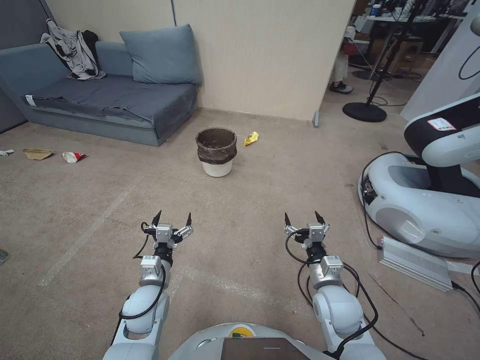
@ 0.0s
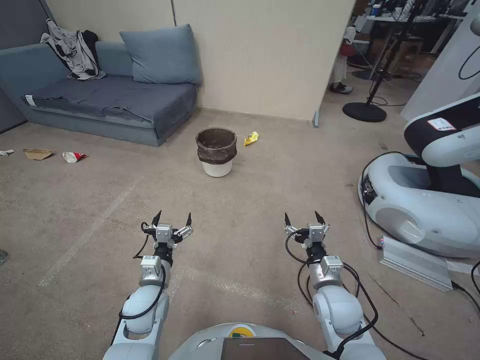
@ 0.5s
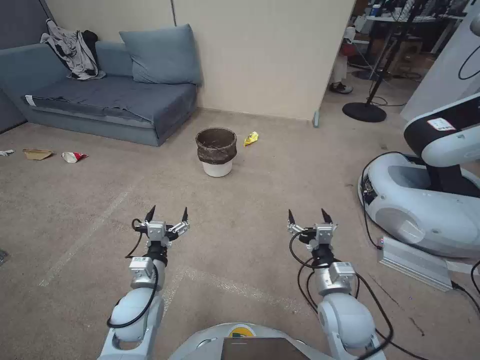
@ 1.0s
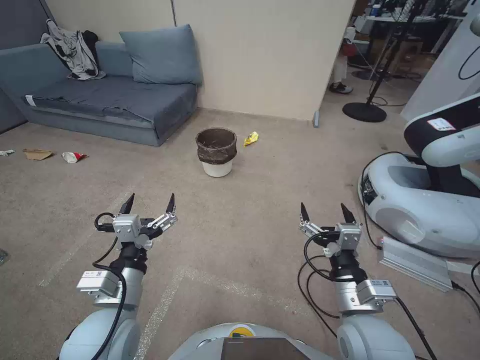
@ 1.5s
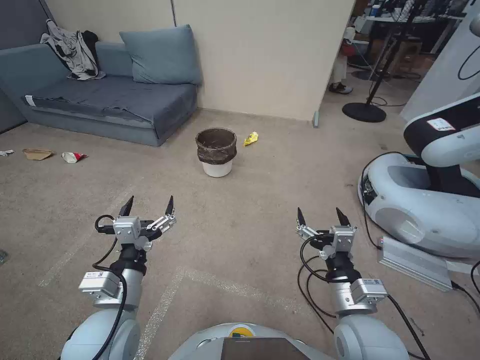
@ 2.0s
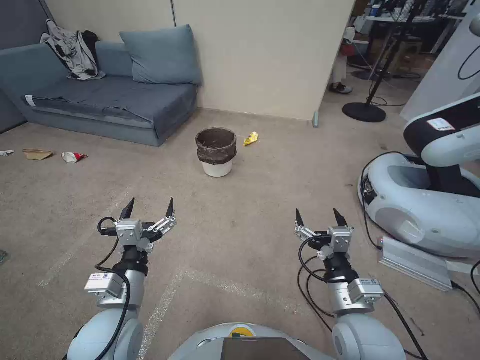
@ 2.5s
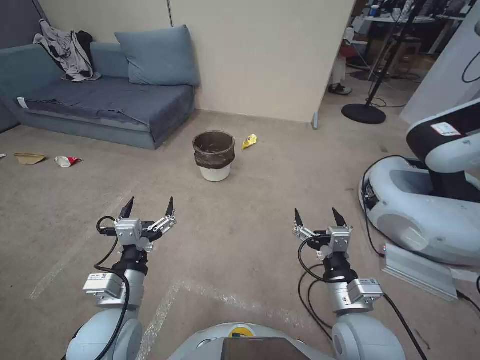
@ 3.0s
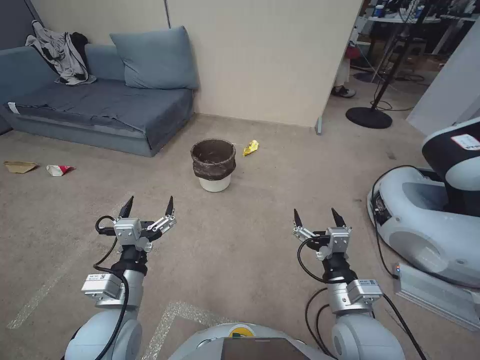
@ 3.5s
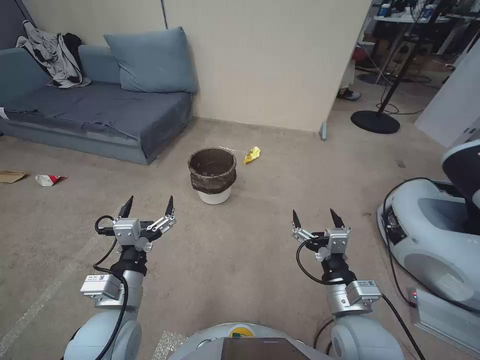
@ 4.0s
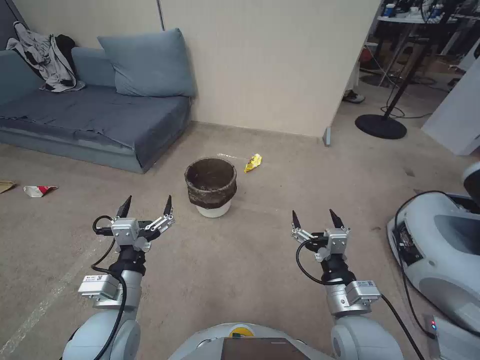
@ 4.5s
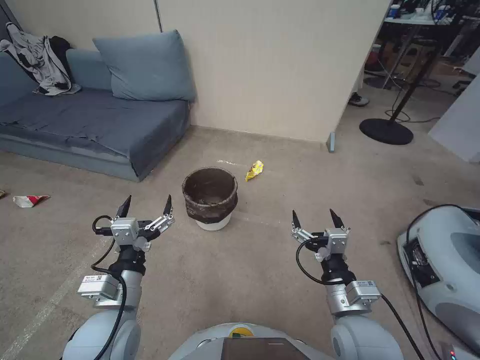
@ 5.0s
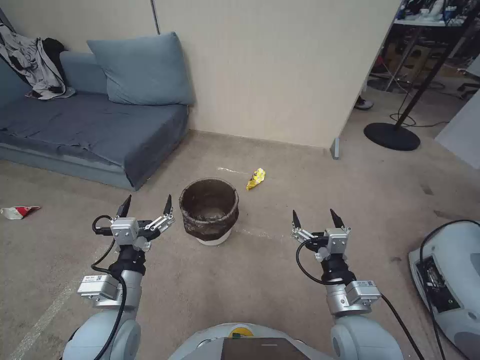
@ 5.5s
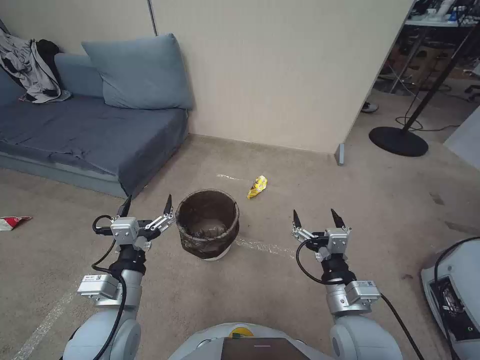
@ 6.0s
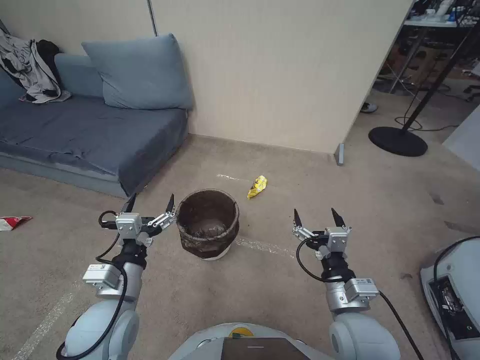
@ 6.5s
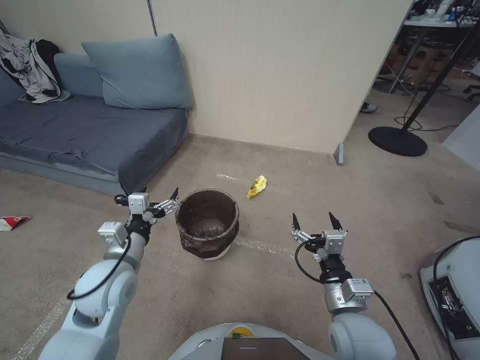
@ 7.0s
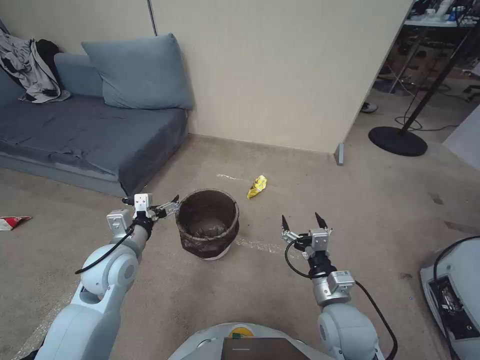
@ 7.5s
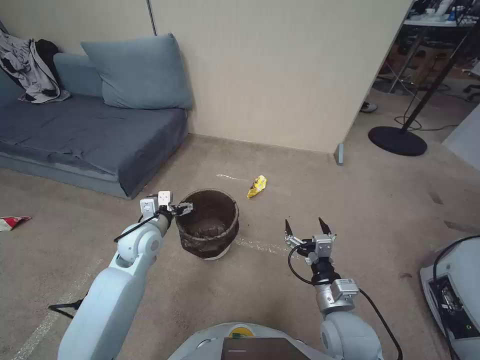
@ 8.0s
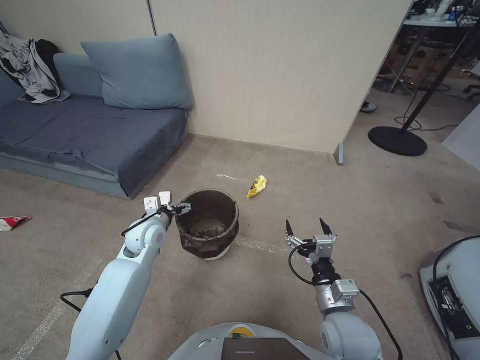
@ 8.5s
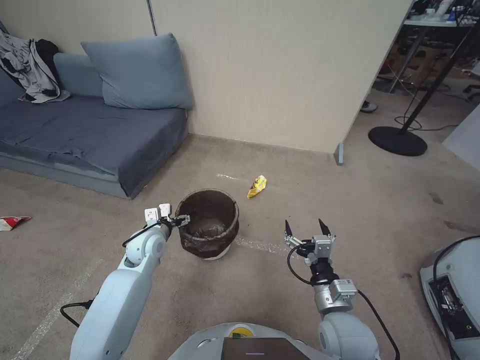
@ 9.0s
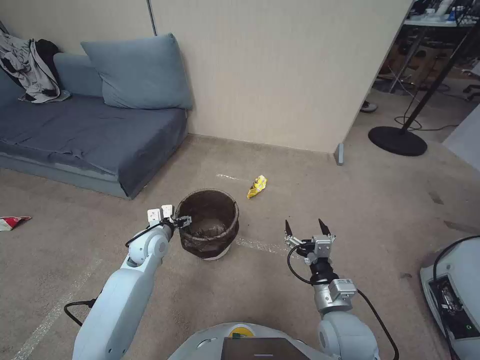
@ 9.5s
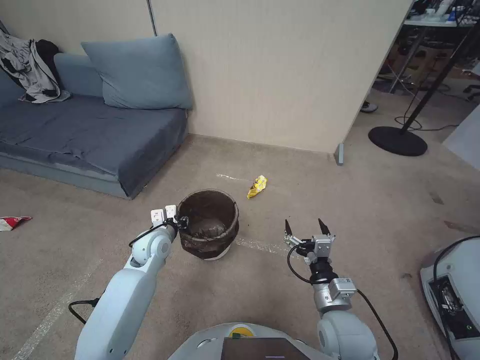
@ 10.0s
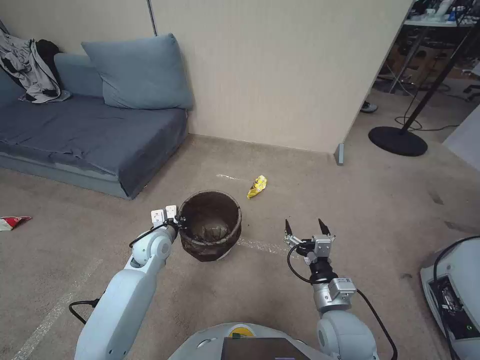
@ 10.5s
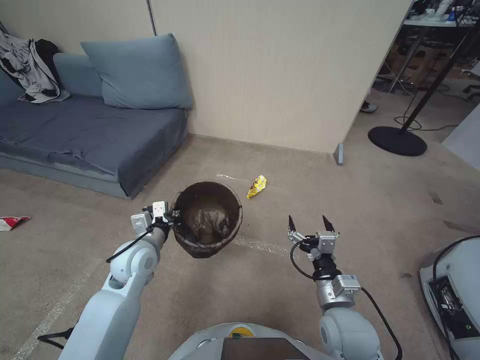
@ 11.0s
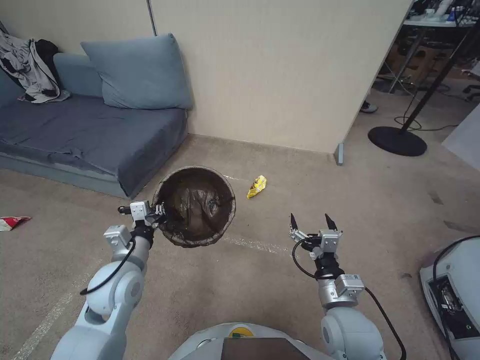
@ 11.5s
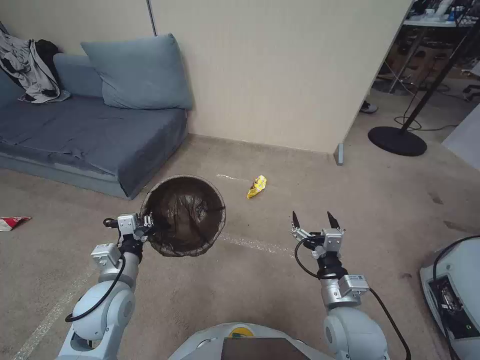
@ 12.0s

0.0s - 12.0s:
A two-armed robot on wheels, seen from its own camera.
Task of the whole recording: Pick up the trash bin, then pick up the garbage from the floor and place it into the trash bin.
6.0s - 8.0s: The right gripper goes approximately 5 cm downward. Meanwhile the left gripper goes roughly 15 cm forward.
8.0s - 10.0s: The left gripper goes about 5 cm downward, and closes up.
10.0s - 12.0s: The left gripper goes about 15 cm backward and upward, and closes up.

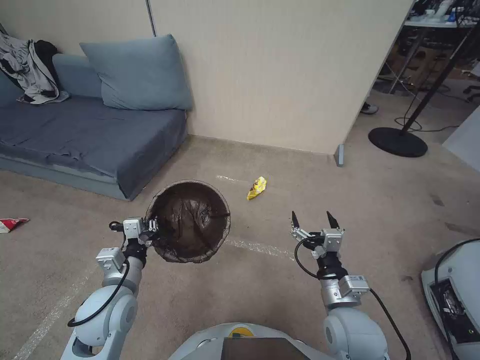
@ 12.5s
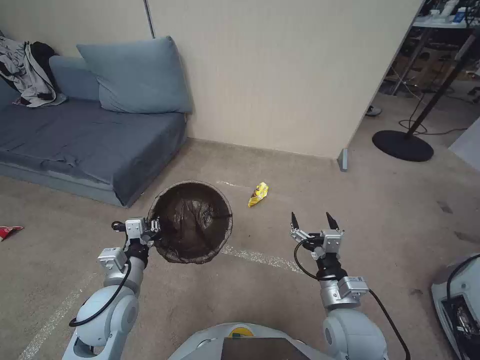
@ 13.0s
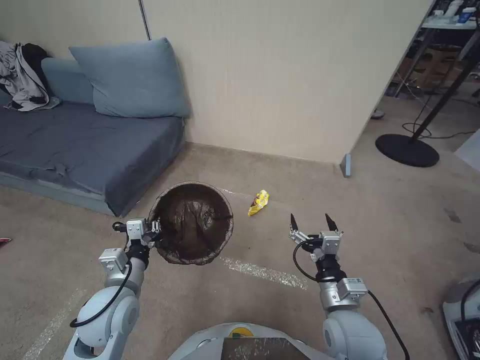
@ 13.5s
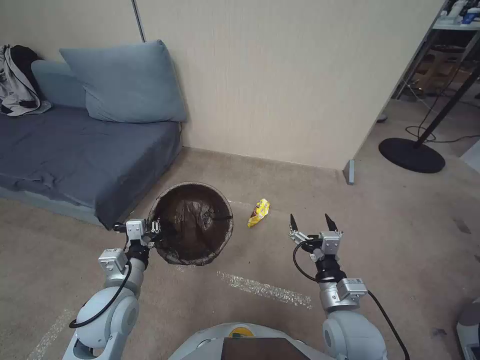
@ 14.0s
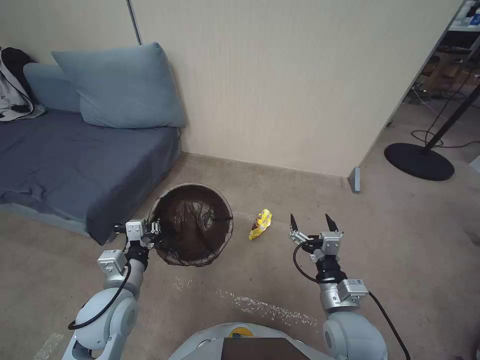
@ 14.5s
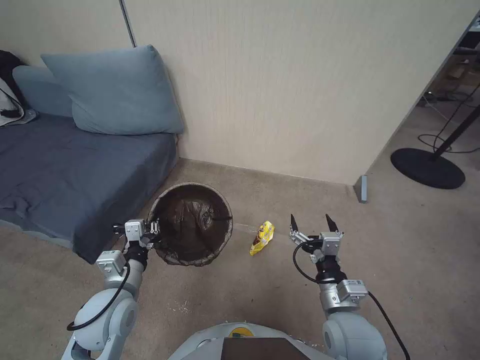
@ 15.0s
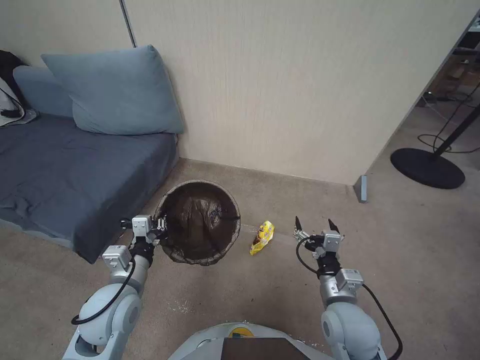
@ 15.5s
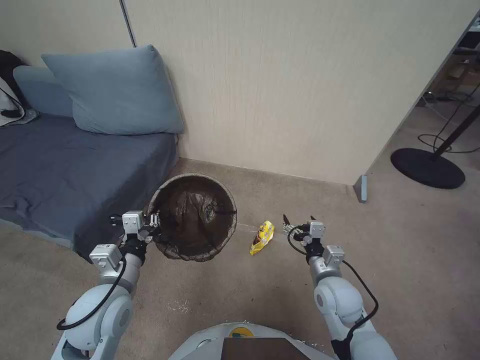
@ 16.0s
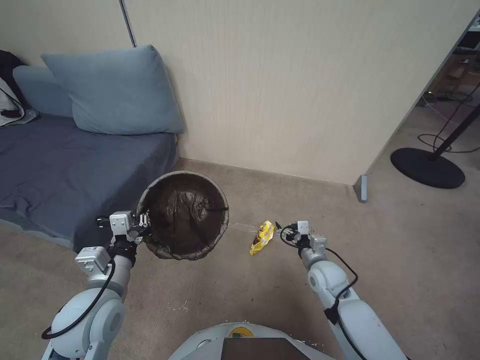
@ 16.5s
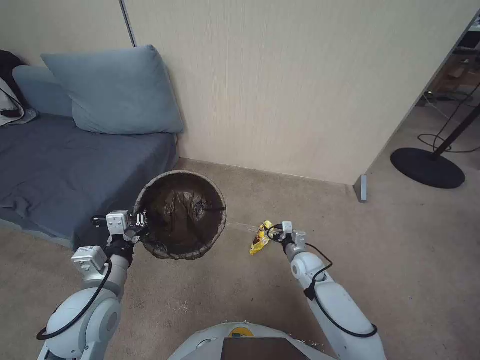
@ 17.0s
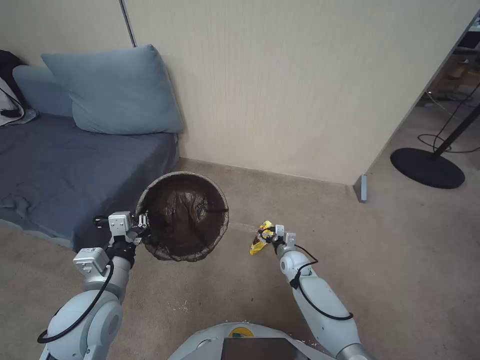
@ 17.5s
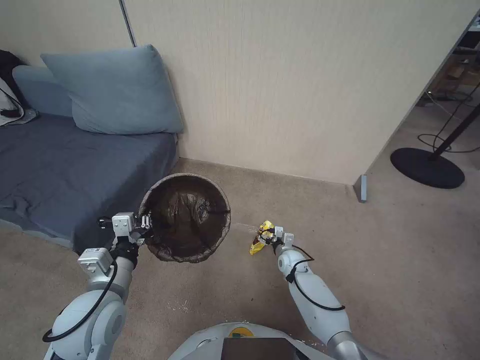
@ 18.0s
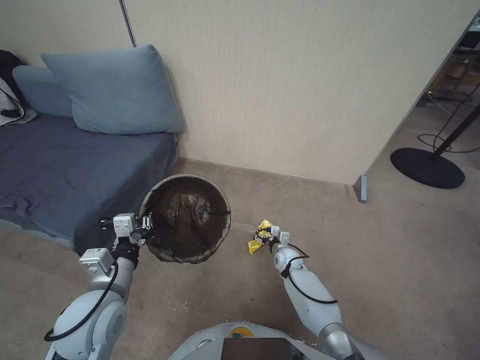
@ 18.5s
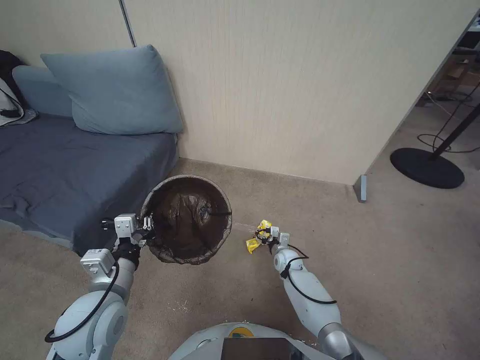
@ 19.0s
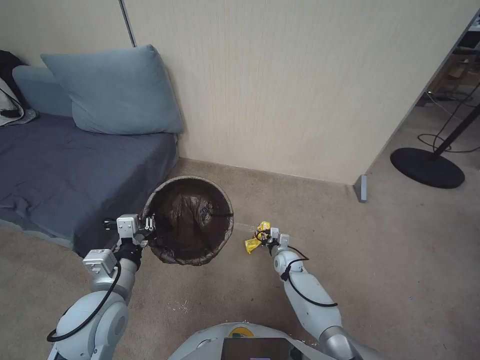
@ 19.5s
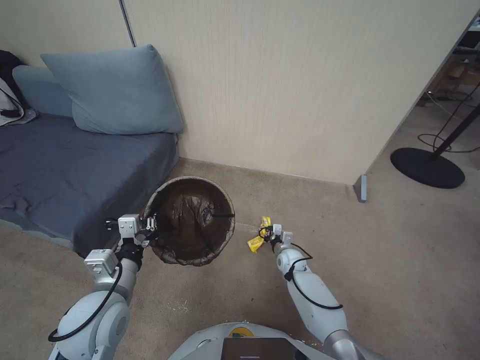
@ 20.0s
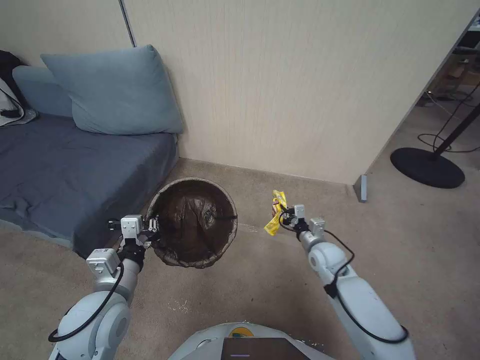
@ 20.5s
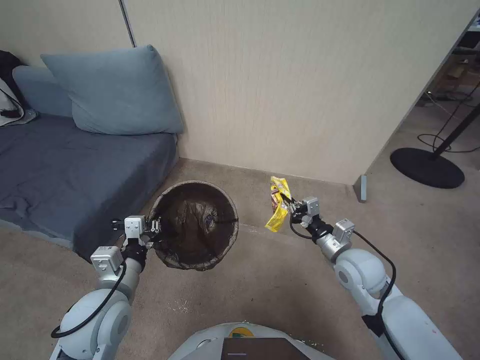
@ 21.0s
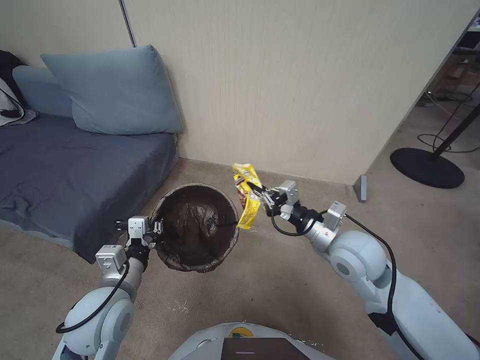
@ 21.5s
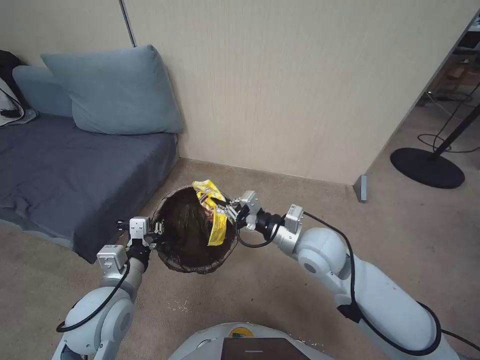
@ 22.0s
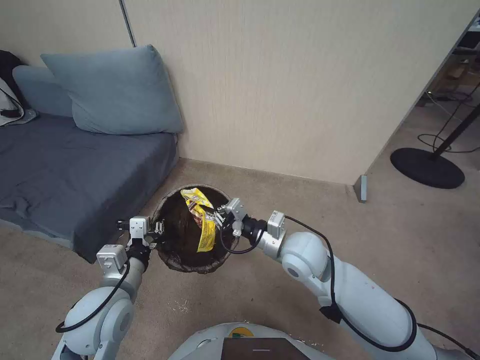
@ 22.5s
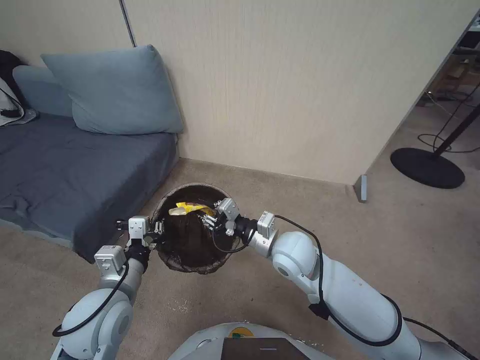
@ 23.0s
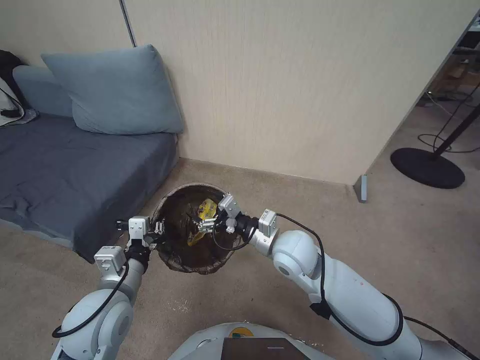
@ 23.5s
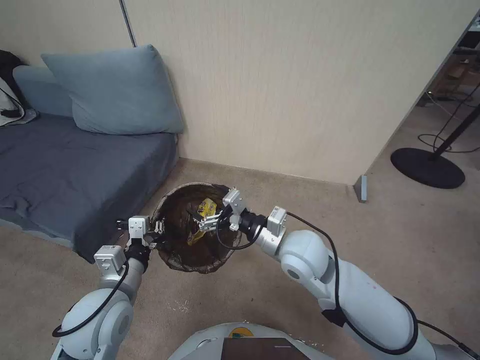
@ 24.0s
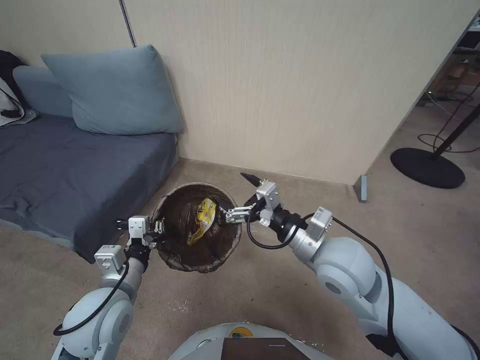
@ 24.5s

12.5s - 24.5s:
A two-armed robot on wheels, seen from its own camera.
Task of the whole recording: Pick up the trash bin, then pick up the garbage from the floor and place it into the trash bin.
14.5s - 16.5s: The right gripper heads forward and downward, covering some 15 cm.
16.5s - 18.5s: The right gripper moves downward, forward and to the left, roughly 20 cm.
18.5s - 20.5s: The right gripper travels upward and to the right by roughly 15 cm, and closes.
20.5s - 22.5s: The right gripper shifts about 20 cm upward and to the left.
22.5s - 24.5s: The right gripper is displaced upward by some 5 cm, and opens up.

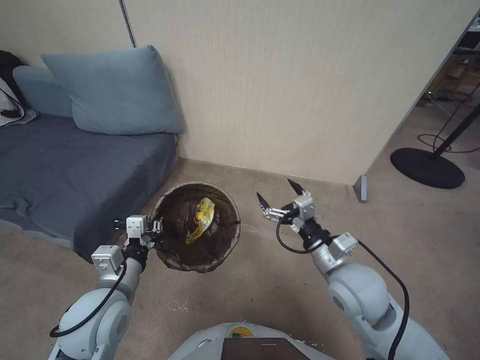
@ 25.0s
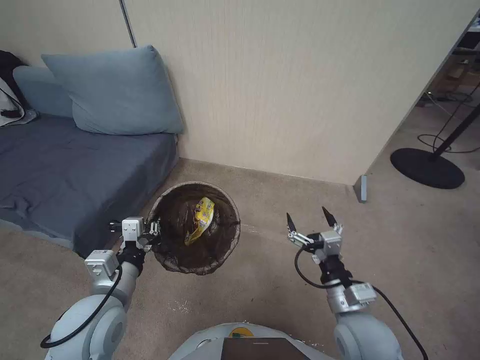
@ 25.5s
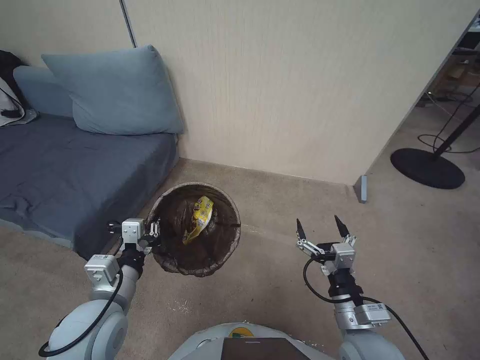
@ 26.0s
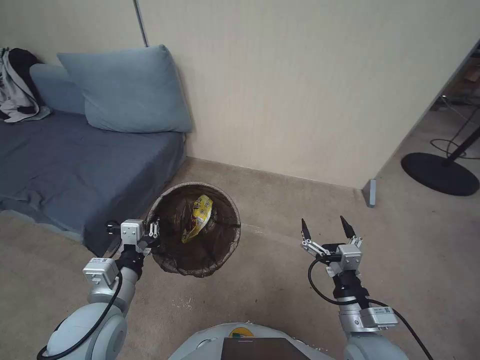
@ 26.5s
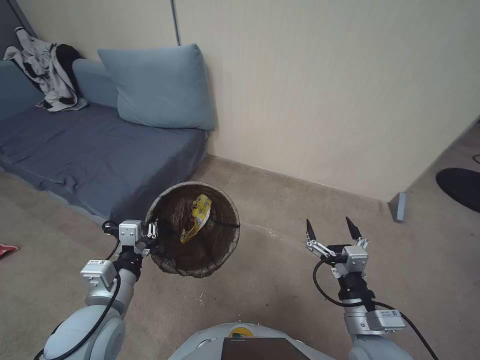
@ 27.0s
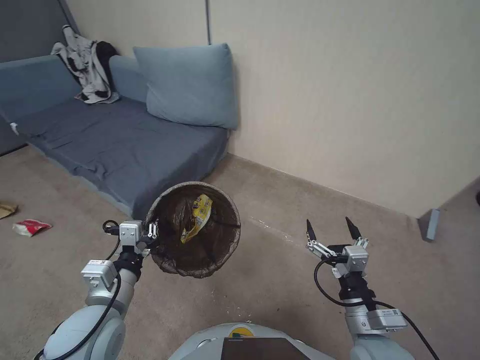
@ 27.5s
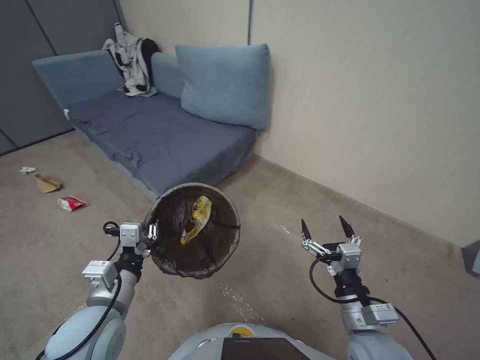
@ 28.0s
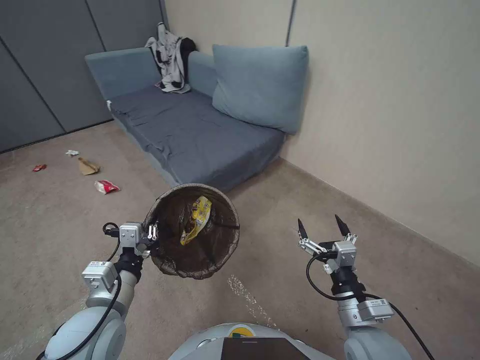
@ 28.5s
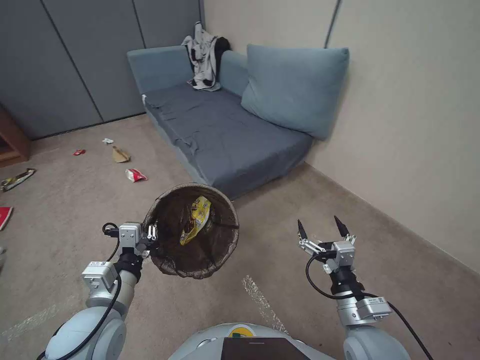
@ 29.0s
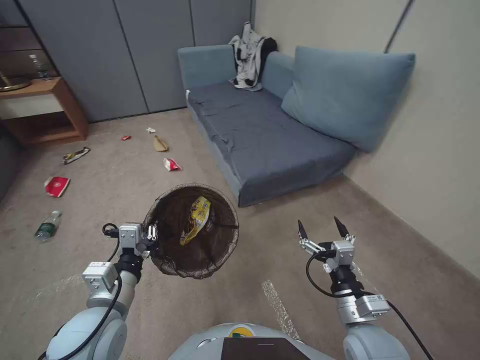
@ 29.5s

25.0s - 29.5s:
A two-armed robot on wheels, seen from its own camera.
Task of the whole recording: Pick up the trash bin, then pick up the garbage from the floor and place it into the trash bin.
25.0s - 27.0s: The right gripper is displaced backward and downward by approximately 15 cm.
